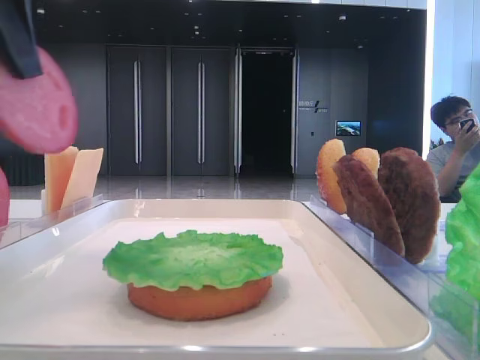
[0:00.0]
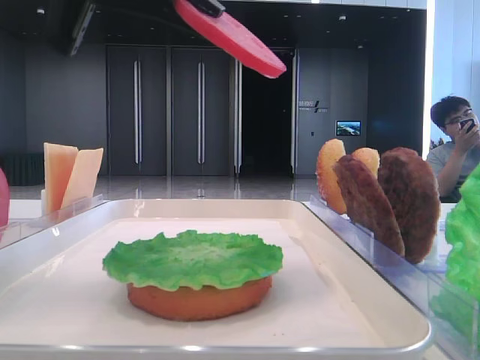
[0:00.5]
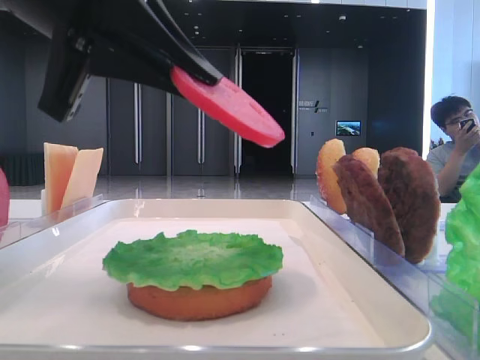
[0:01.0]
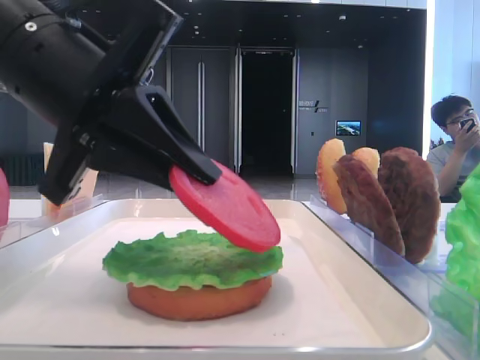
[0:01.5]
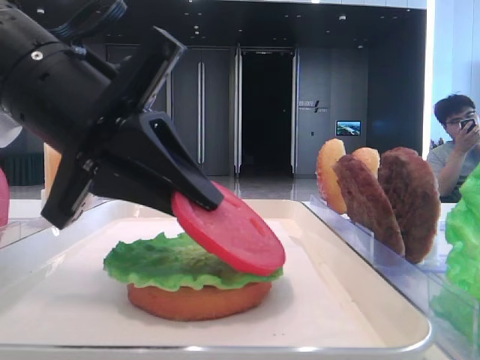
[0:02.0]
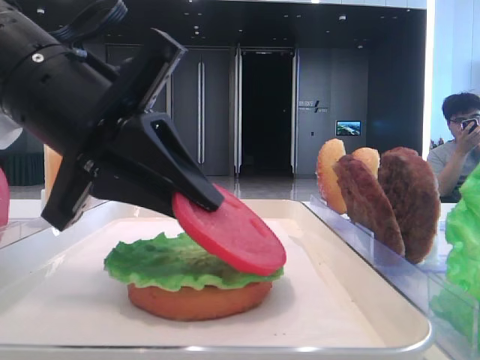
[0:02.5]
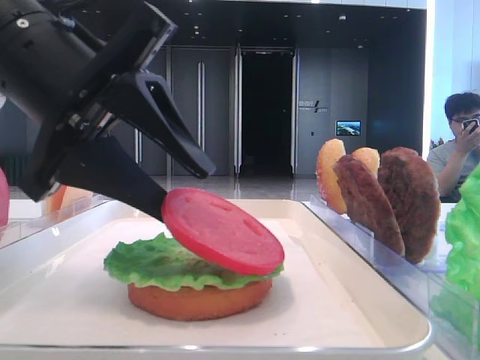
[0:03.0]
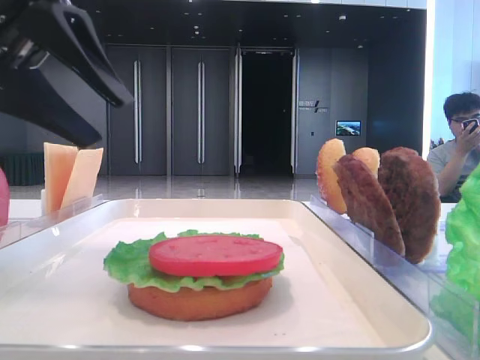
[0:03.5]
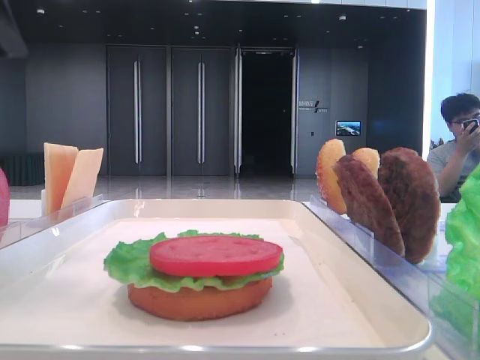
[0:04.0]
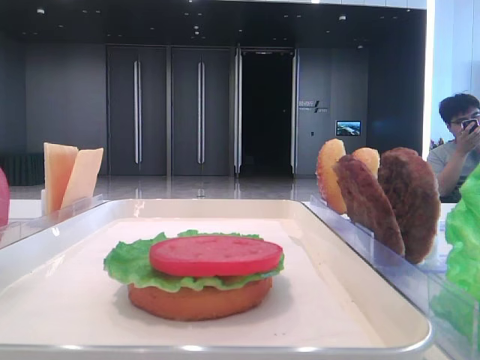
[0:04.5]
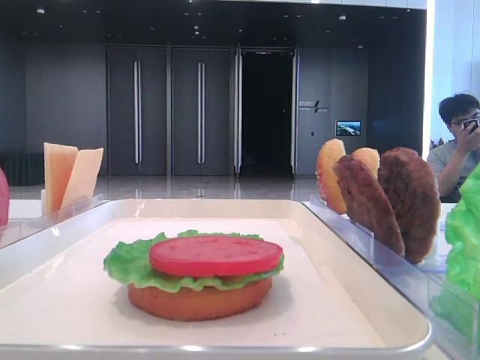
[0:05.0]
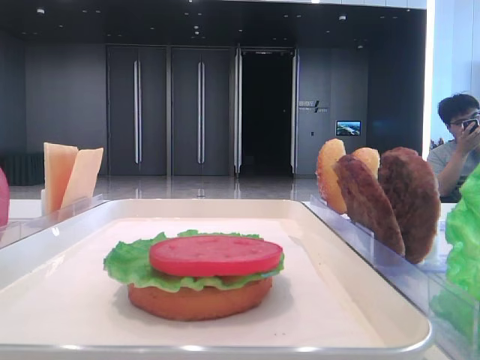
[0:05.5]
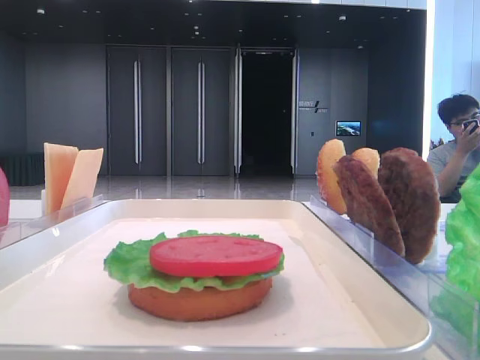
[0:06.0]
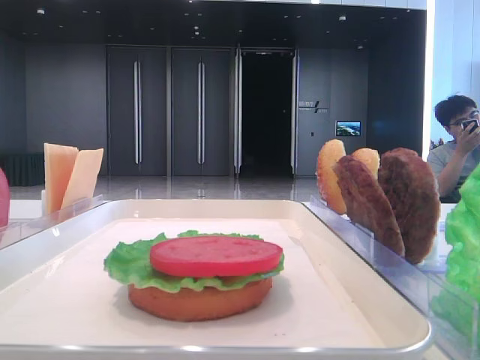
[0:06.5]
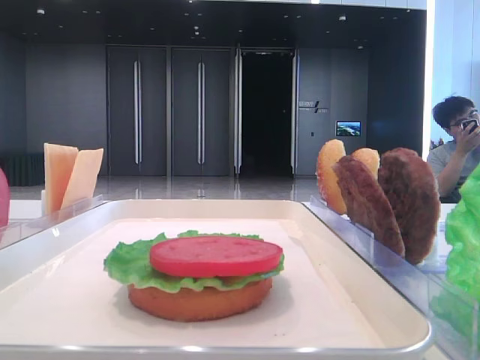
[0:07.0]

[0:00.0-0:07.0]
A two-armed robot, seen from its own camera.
Step, 0.0 to 3.0 s: Place the tomato slice on the lettuce leaf with the left hand.
0.0 to 2.0 s: The left gripper shifts some 15 cm downward and to the right.
2.0 to 3.5 s: The left gripper goes roughly 10 cm upward and to the left, and opens up.
3.5 to 5.0 s: The left gripper travels to the left and upward by some 15 cm.

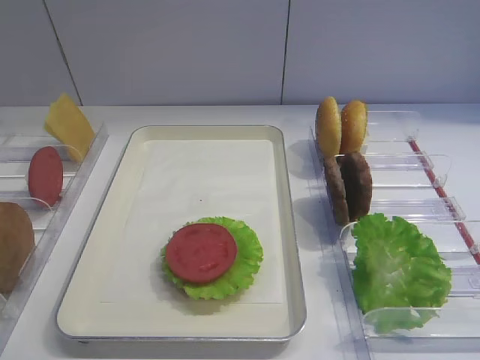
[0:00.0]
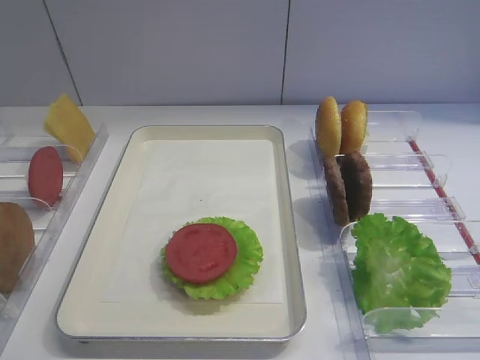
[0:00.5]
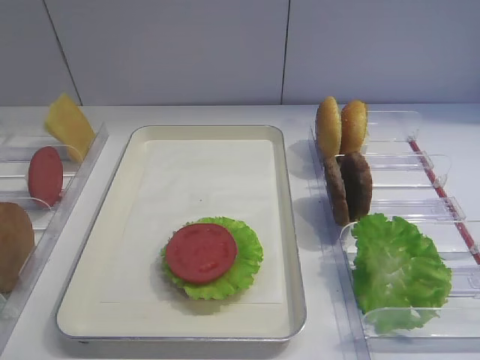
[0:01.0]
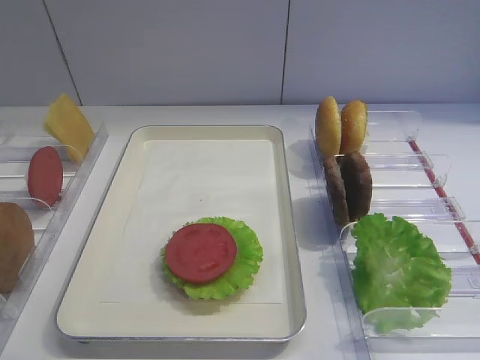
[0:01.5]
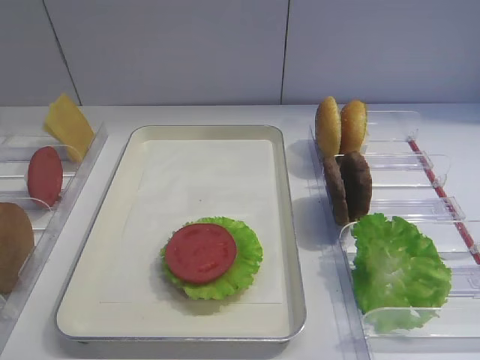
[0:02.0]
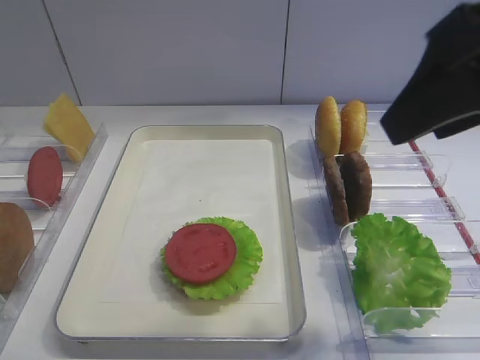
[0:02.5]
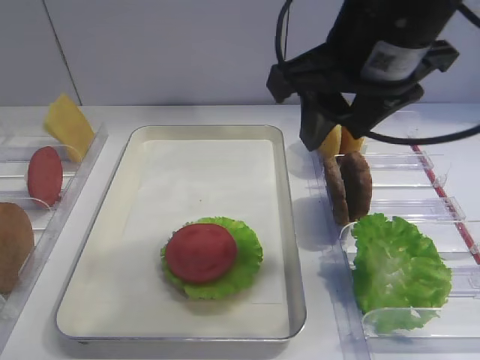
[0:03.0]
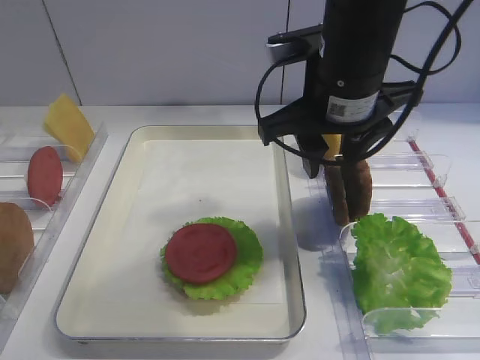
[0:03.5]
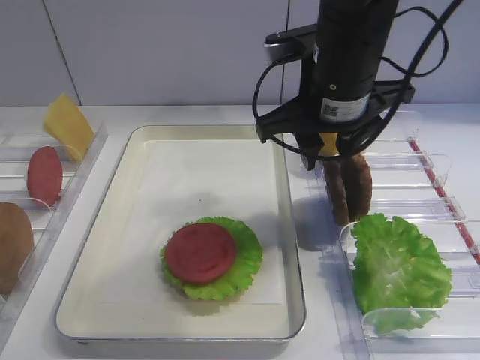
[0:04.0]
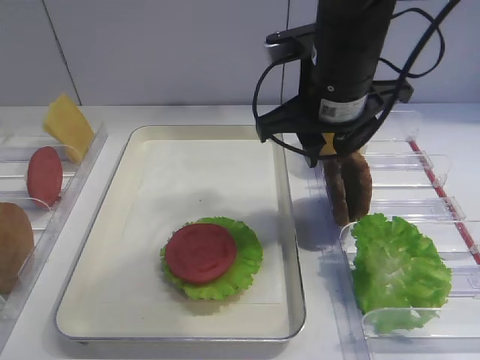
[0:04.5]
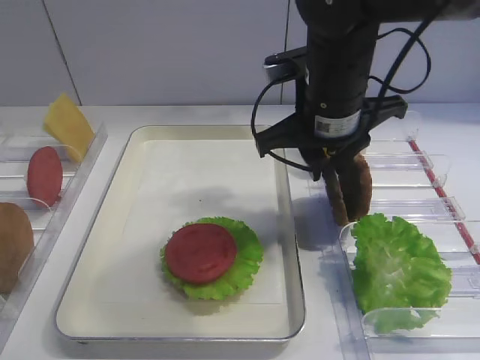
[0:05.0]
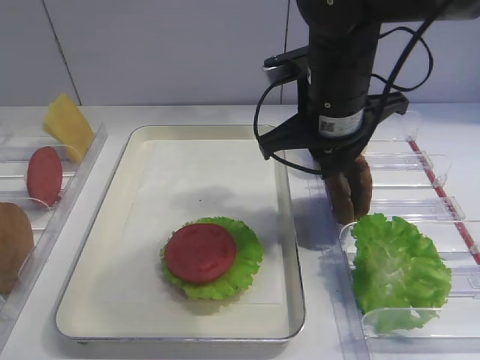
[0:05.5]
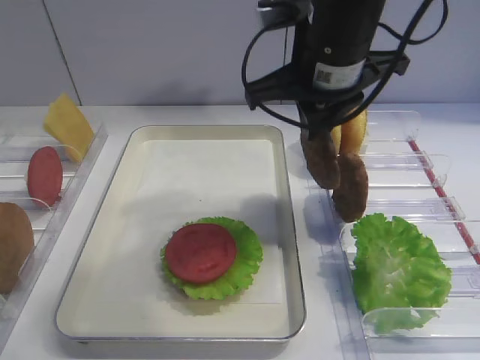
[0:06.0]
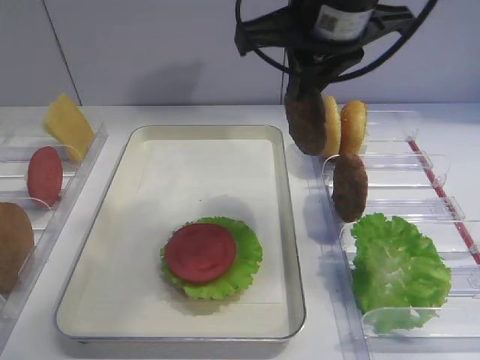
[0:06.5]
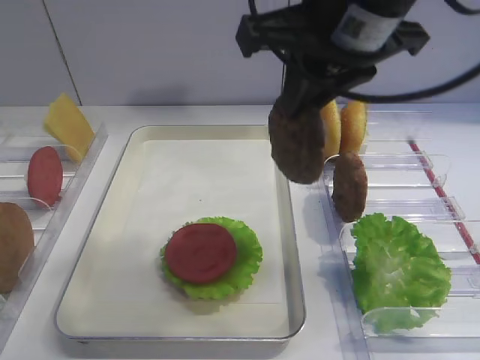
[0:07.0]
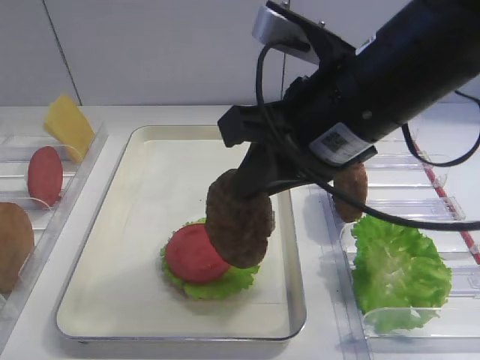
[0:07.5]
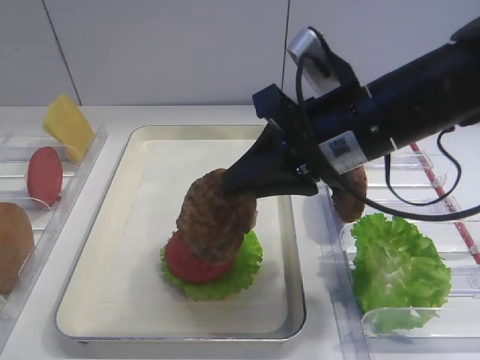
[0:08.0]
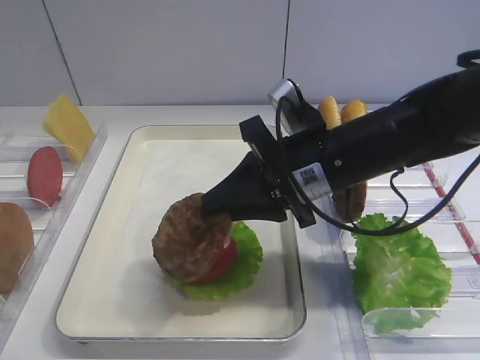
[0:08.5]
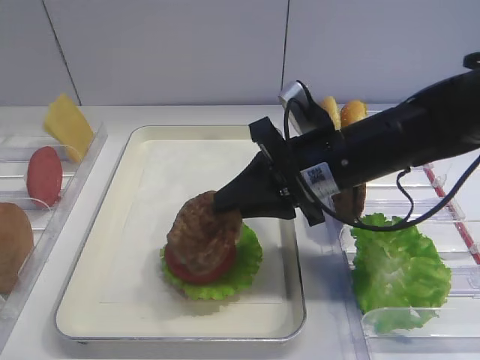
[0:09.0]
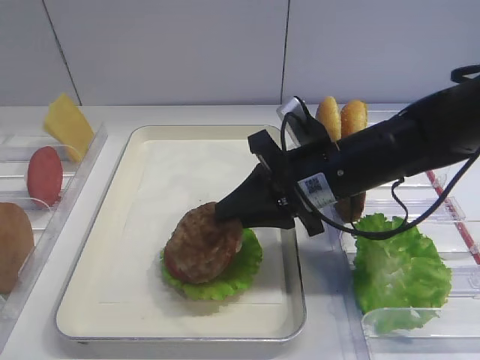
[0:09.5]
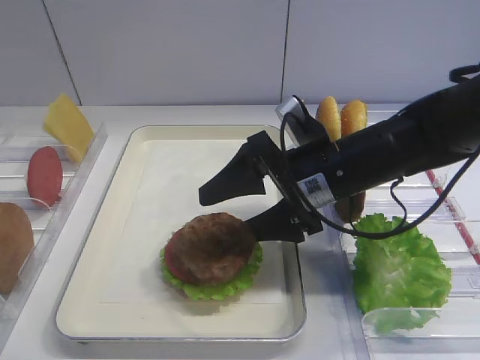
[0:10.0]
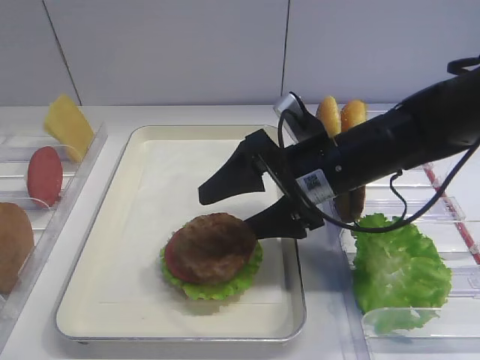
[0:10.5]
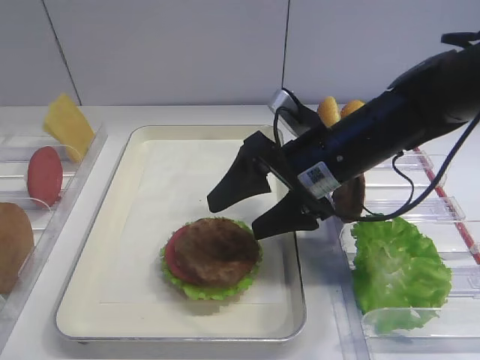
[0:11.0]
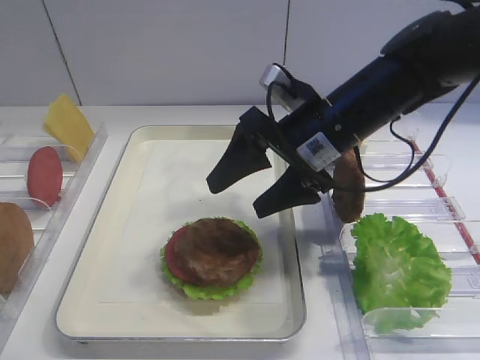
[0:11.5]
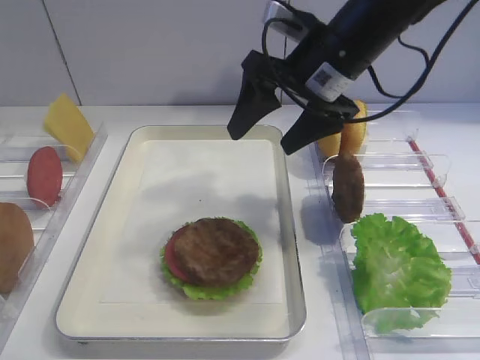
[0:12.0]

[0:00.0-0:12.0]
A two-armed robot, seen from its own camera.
Step, 0.0 to 6.0 s: Pick up the cutlet with the right gripper.
Step, 6.5 to 11.0 s: Place the cutlet on the tomato slice with the right gripper.
2.0 to 4.0 s: The right gripper travels forward, to the left and downward by some 30 cm.
4.0 to 6.0 s: The right gripper closes its fingers.
6.0 to 8.0 s: The right gripper travels backward by about 5 cm.
8.0 to 10.0 s: The right gripper travels downward by about 10 cm, and opens.
10.0 to 12.0 s: The right gripper shifts some 10 cm upward and forward.

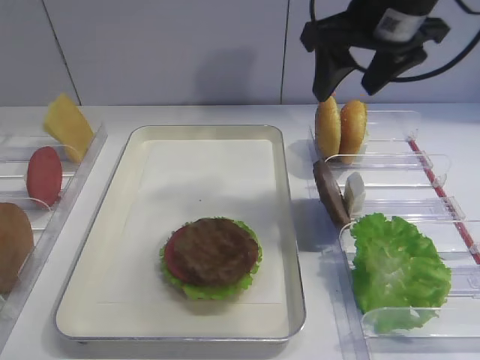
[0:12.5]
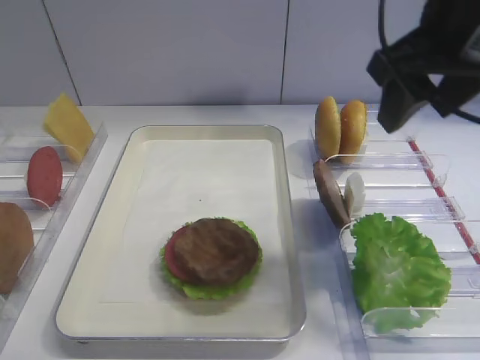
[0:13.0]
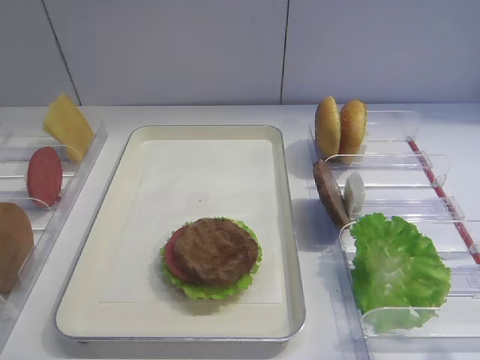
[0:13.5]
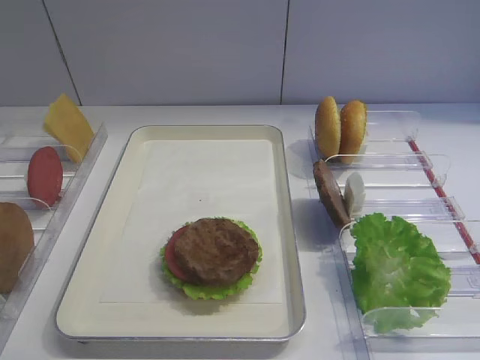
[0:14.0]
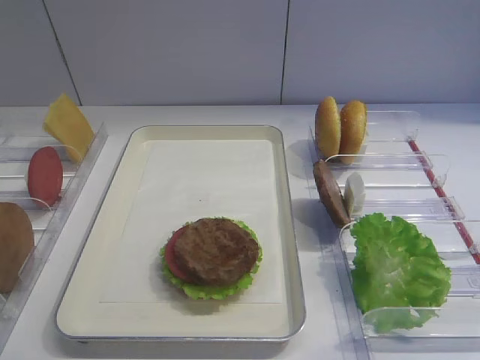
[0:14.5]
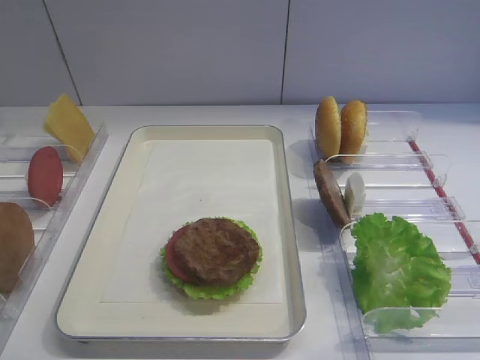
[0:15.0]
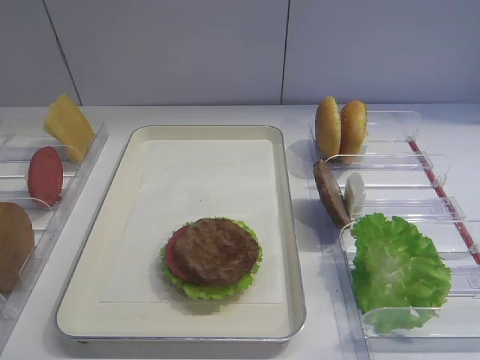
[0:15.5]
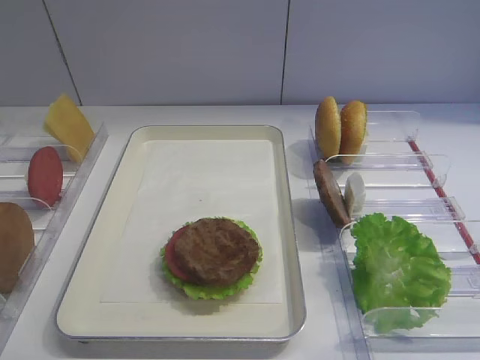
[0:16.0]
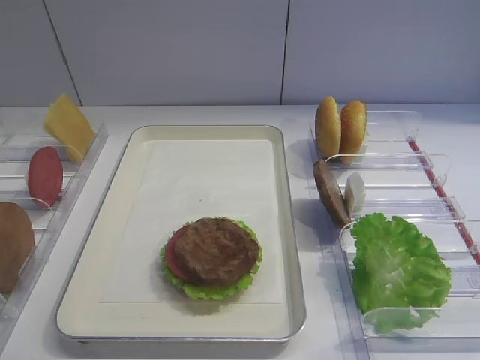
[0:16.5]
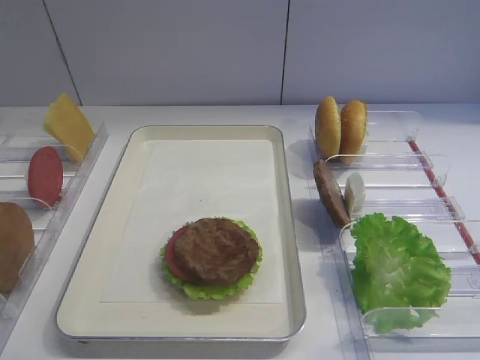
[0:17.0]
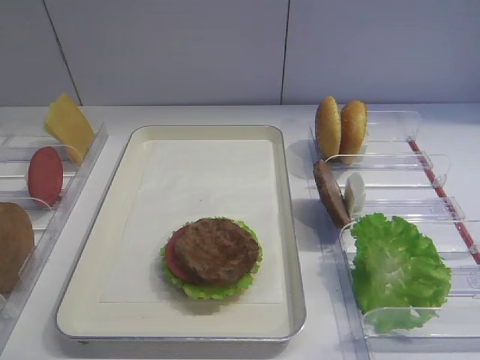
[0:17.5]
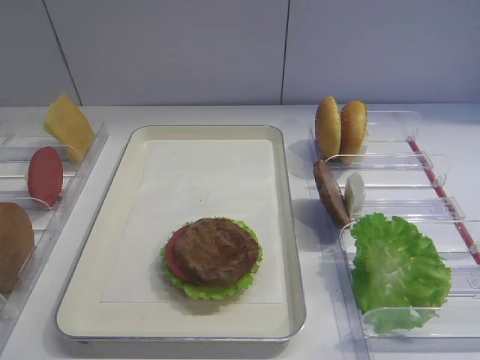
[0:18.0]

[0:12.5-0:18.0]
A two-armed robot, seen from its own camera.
12.5 to 14.5 s: The right gripper is displaced backward by approximately 35 cm.
14.5 to 18.0 s: Both grippers stay put.

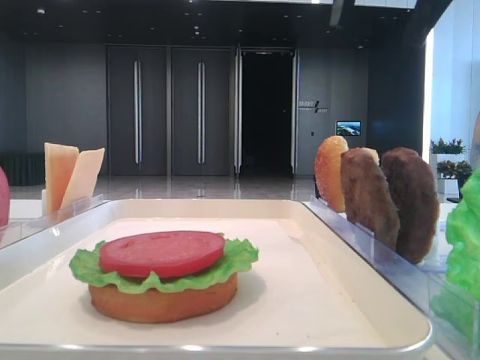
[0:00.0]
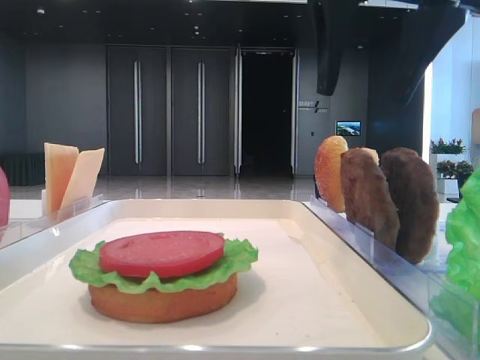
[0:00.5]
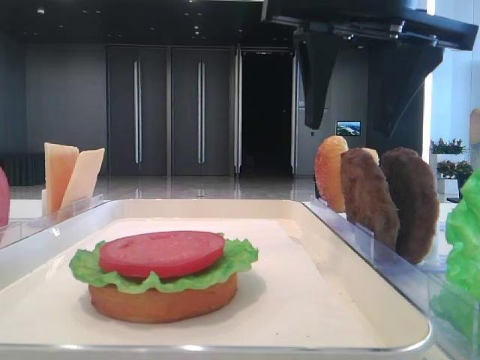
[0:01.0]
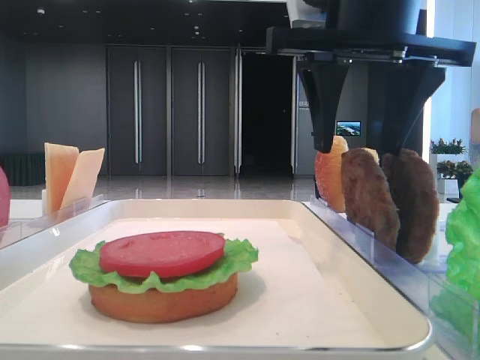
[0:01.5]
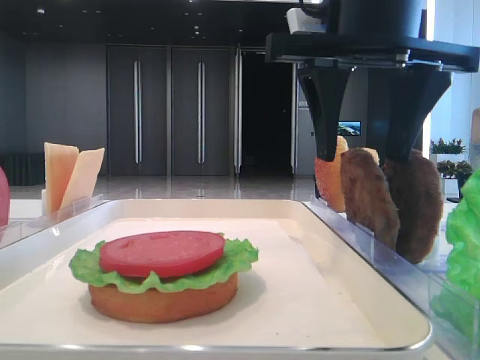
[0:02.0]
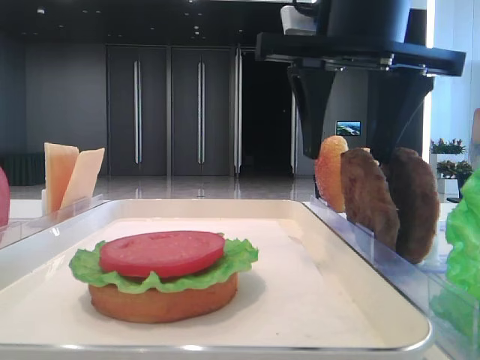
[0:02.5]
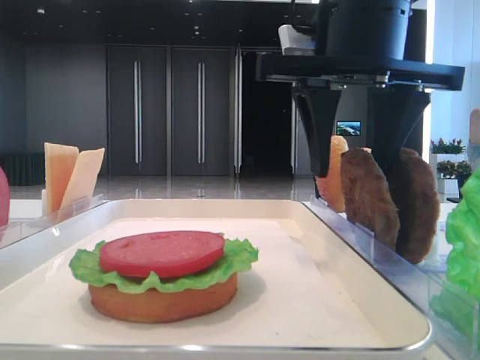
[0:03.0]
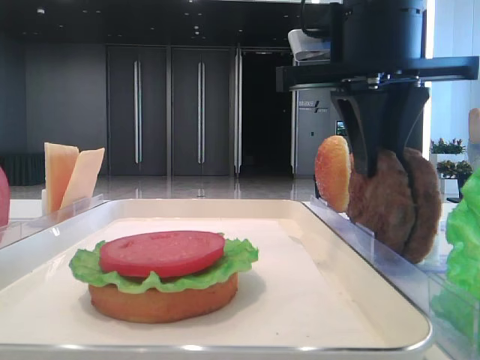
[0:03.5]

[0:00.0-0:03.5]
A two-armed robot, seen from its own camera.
Step, 0.0 to 3.0 s: Grab the patty with the right hand.
0.0 to 2.0 s: The right gripper is displaced downward by approximately 10 cm.
2.0 to 3.5 s: The right gripper closes up.
